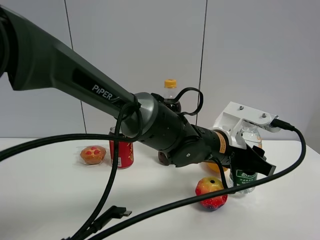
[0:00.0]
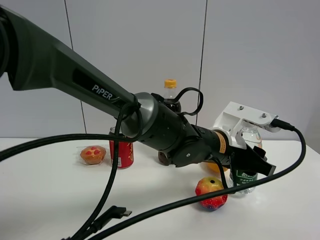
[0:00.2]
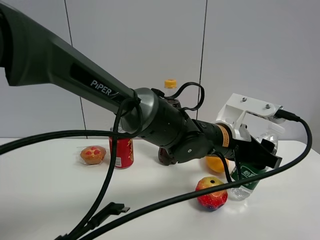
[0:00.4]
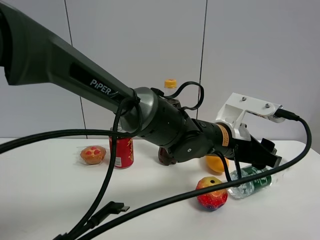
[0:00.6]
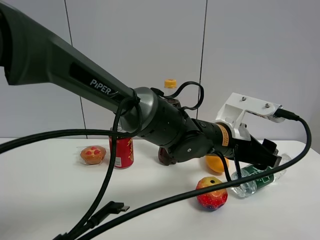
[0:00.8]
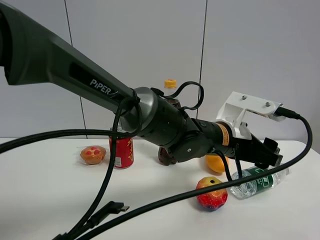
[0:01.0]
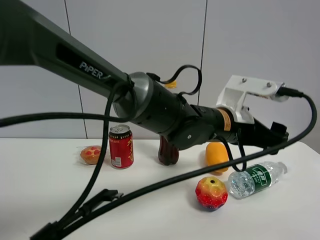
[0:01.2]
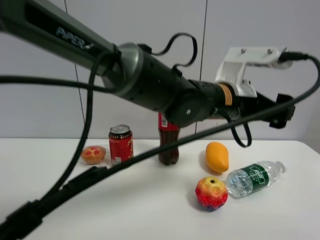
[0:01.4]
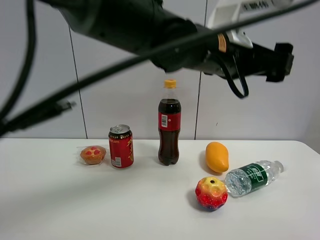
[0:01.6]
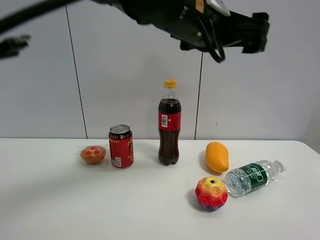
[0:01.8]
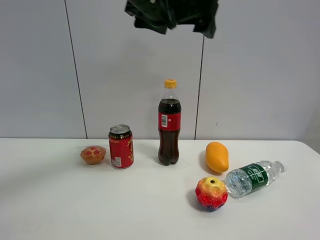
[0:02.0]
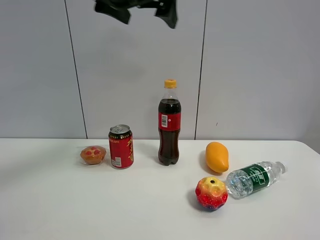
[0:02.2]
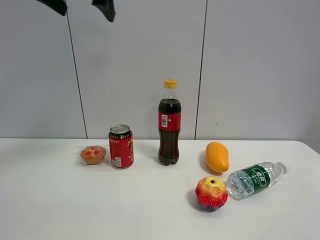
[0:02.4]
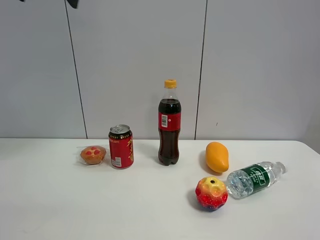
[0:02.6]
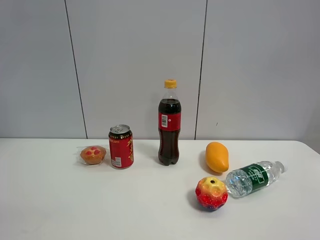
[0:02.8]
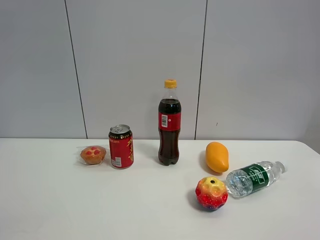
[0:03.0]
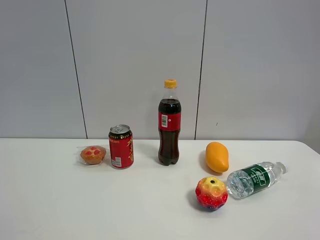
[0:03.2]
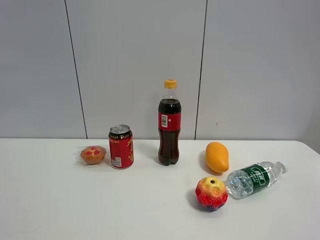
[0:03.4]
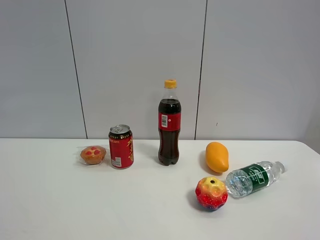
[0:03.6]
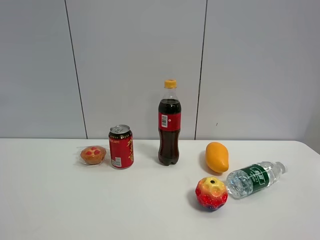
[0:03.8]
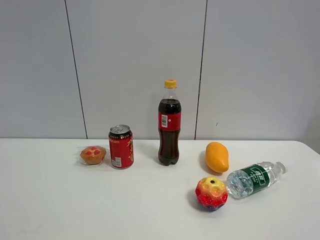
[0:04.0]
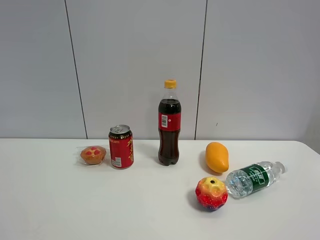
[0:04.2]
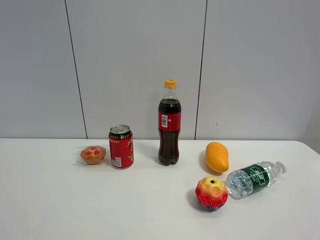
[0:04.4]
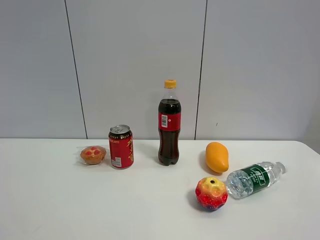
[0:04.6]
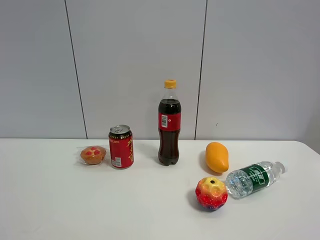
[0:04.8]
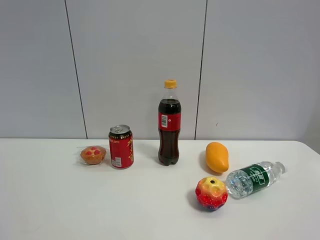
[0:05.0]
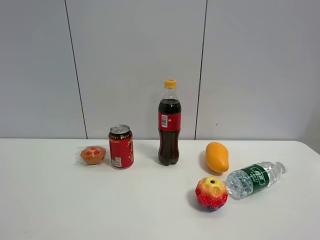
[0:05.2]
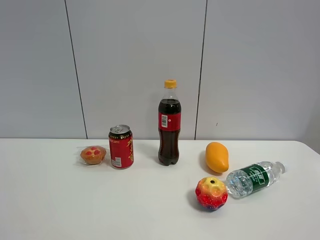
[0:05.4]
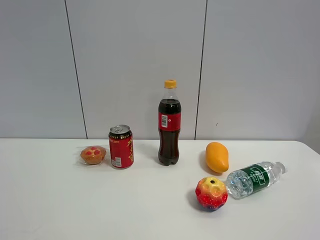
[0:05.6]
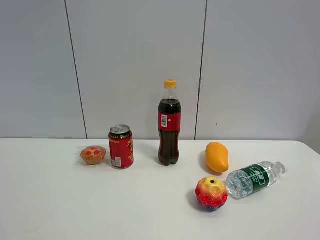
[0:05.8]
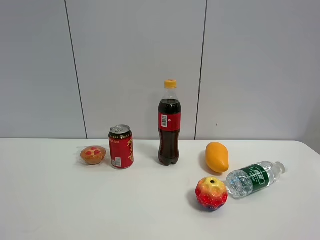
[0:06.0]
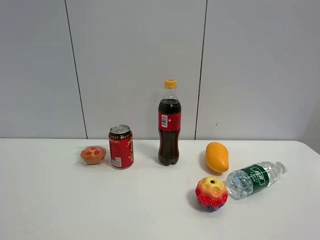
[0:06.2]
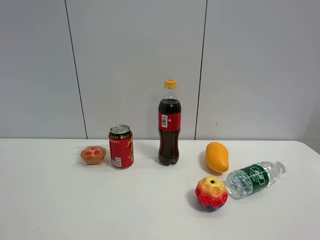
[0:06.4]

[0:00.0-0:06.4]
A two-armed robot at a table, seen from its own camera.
Task of the whole recording: the gripper move the object.
0:00.0 to 0:01.6: The left gripper goes roughly 15 cm upward, and opens its fingers.
0:01.6 to 0:03.2: The left gripper shifts some 40 cm to the left.

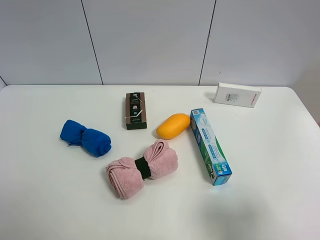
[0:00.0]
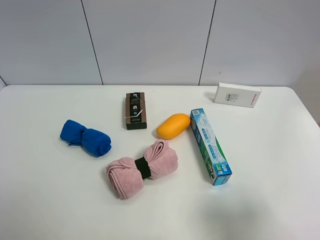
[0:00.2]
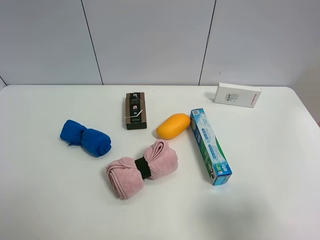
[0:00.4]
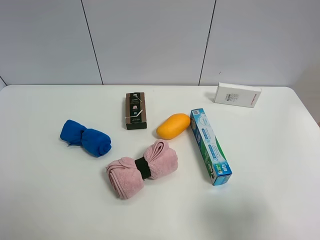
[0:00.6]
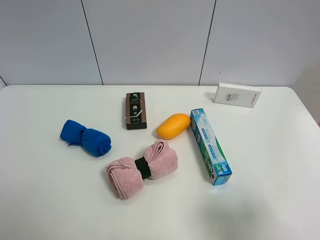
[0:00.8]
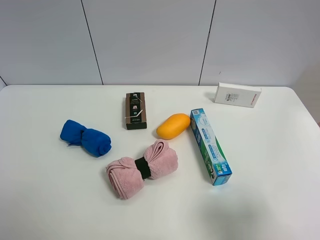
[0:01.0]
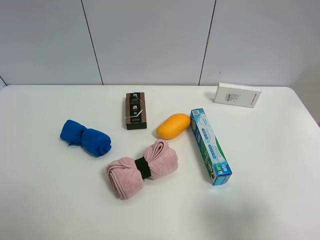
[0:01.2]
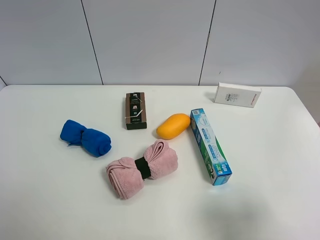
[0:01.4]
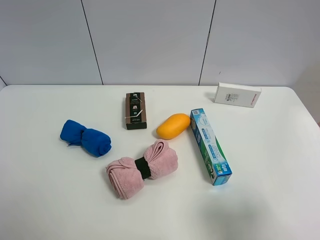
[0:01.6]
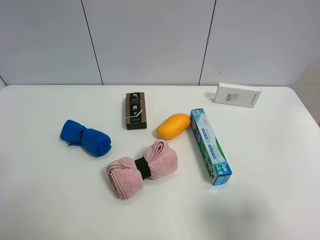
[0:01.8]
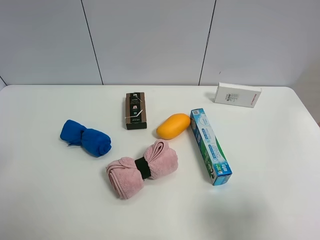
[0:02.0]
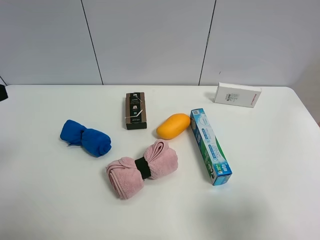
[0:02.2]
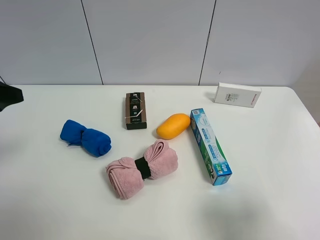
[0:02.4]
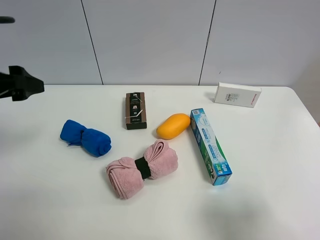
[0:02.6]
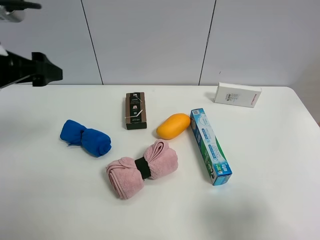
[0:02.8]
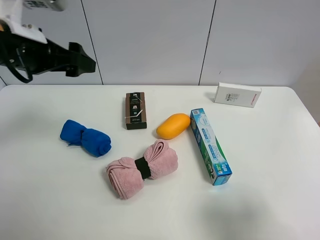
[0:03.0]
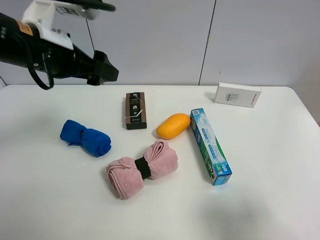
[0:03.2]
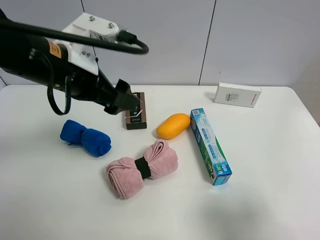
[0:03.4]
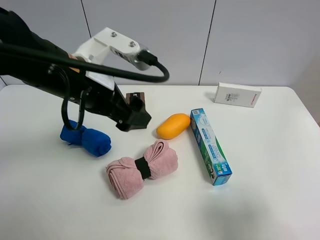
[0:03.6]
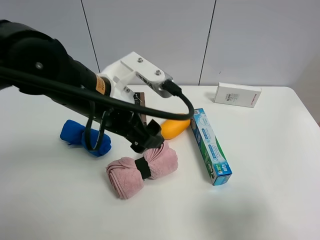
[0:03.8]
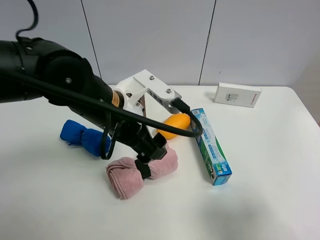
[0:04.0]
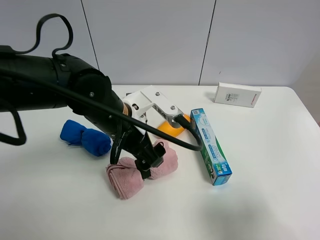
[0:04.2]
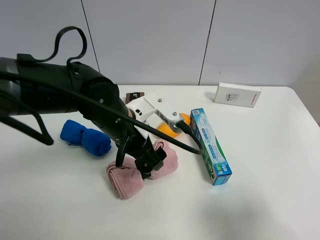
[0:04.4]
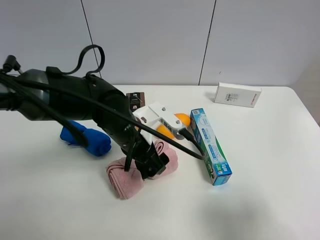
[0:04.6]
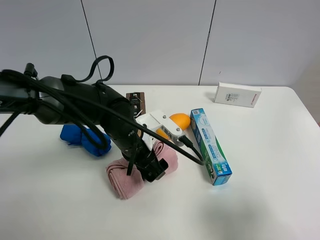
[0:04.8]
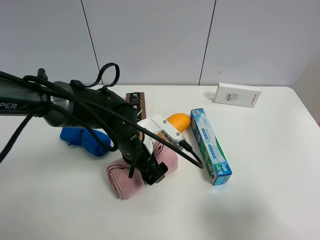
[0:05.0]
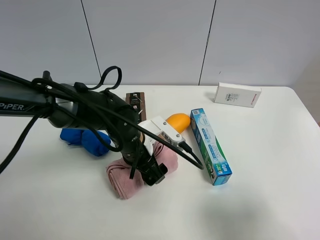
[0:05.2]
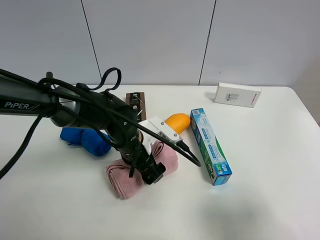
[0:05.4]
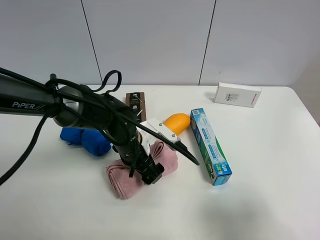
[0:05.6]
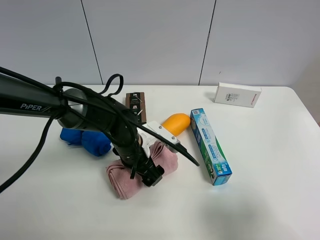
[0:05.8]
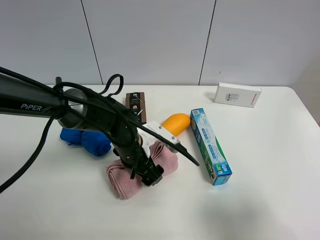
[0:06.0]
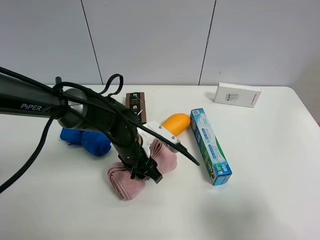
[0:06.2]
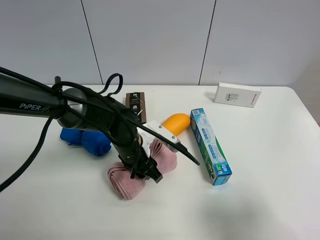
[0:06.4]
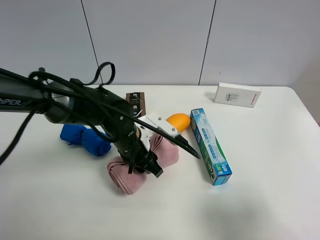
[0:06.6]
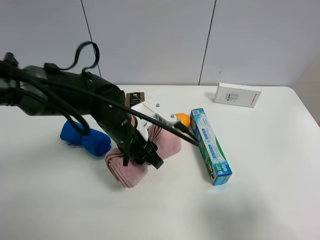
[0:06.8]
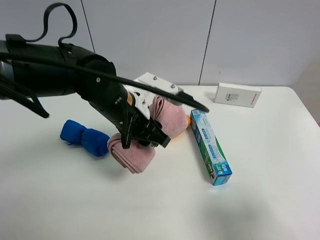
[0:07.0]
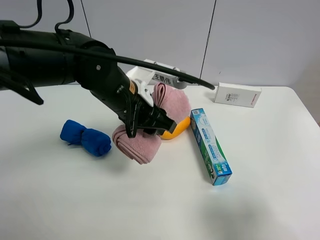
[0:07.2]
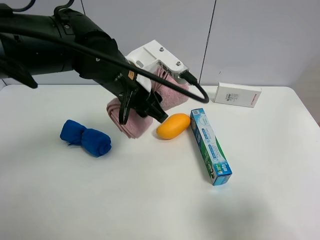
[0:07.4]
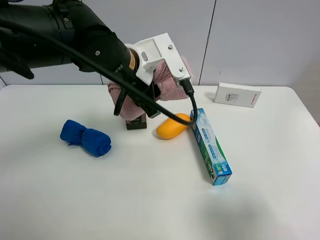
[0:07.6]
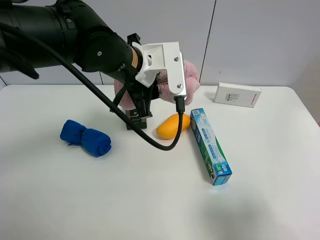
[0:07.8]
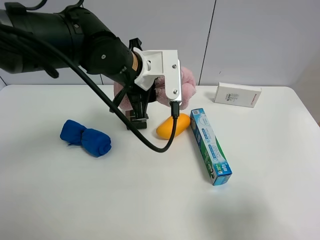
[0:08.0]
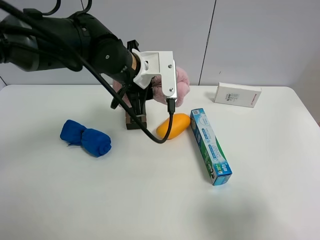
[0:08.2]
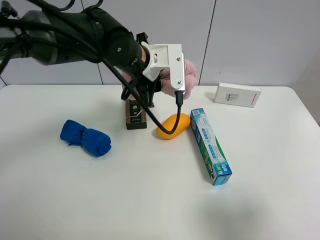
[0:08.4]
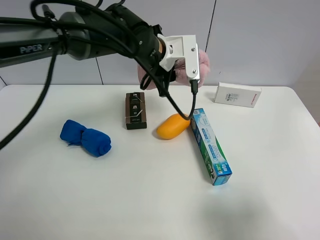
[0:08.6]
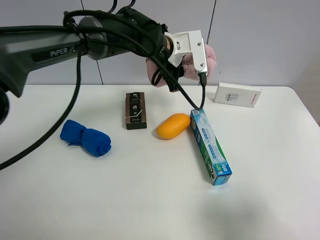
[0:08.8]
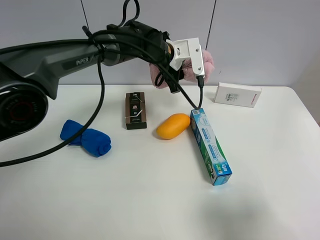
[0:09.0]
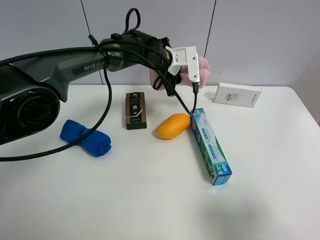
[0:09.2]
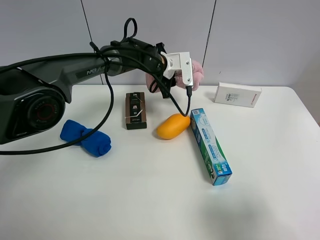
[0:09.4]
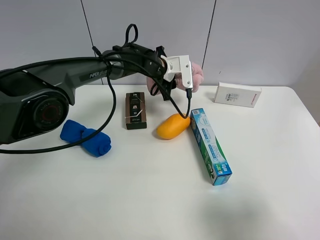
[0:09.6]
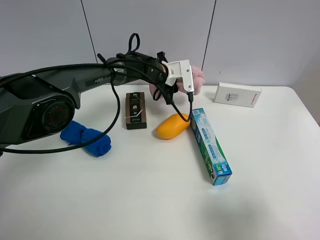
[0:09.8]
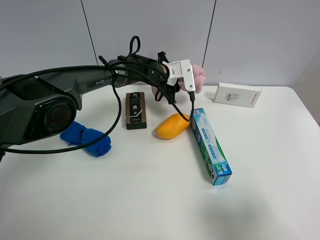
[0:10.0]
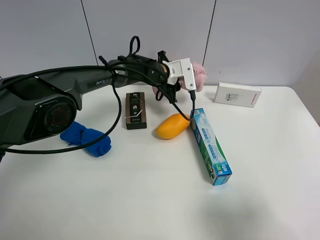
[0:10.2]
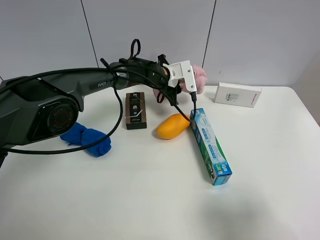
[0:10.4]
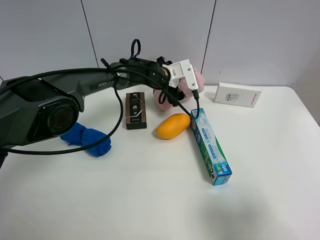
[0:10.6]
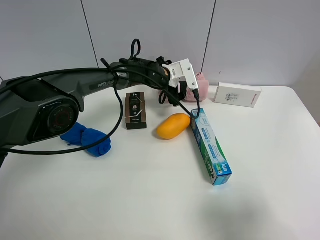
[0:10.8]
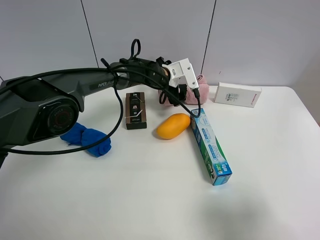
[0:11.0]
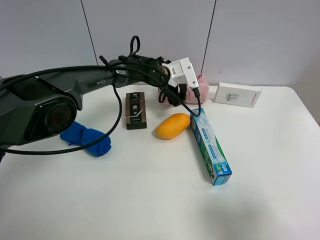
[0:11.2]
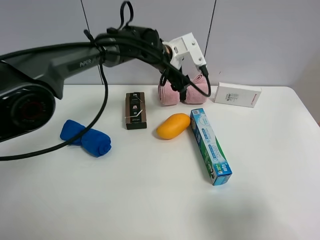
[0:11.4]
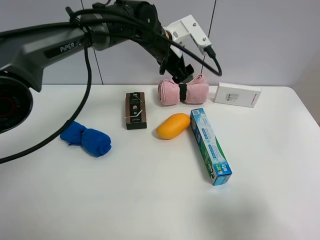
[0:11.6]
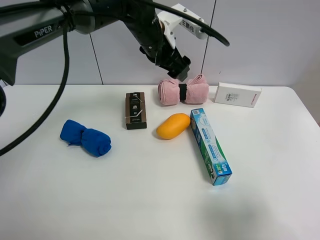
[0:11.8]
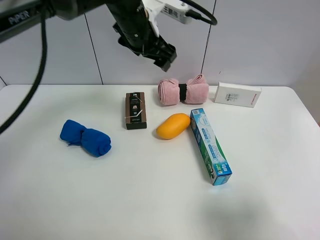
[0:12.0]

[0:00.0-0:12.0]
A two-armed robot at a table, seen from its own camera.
Task of the whole recording: the gripper move the object.
Step, 0:00.0 to 0:06.2: Grasp the pink towel with the left gripper.
Step, 0:06.4 to 0:11.4: Place the pink towel on the table with the left gripper.
0:01.6 to 0:03.0: The left gripper moves forward and to the right, some 25 cm.
0:03.0 to 0:04.4: The left gripper goes about 20 cm to the right and downward.
0:04.4 to 0:06.0: The left gripper is displaced downward by approximately 10 cm.
0:06.0 to 0:07.6: The left gripper goes roughly 15 cm upward, and closes up.
0:07.6 to 0:09.0: The left gripper heads forward and to the right, covering some 15 cm.
0:09.0 to 0:10.4: The left gripper shifts approximately 10 cm downward.
0:10.4 to 0:12.0: The left gripper moves upward and backward, approximately 20 cm, and opens its fingers.

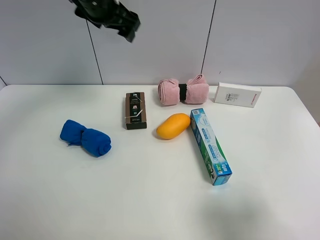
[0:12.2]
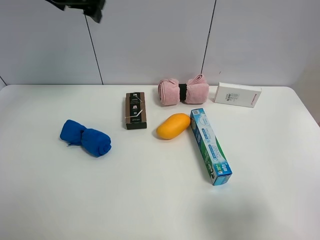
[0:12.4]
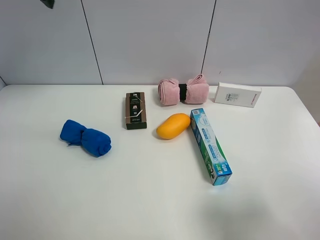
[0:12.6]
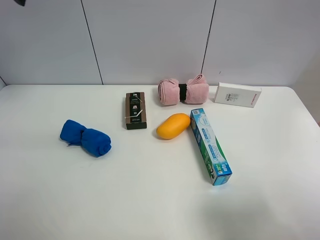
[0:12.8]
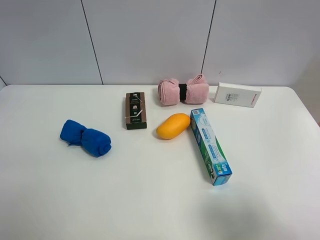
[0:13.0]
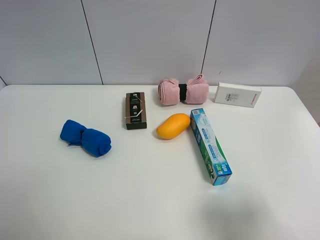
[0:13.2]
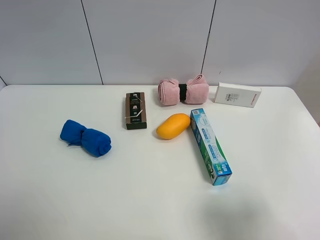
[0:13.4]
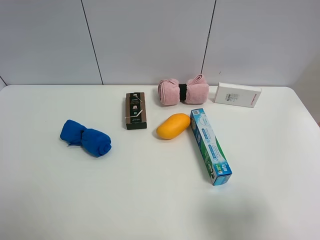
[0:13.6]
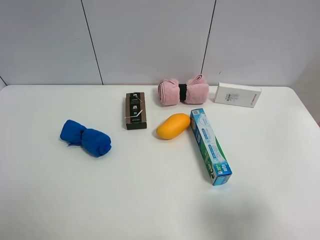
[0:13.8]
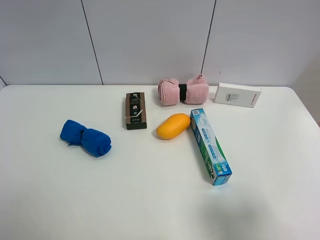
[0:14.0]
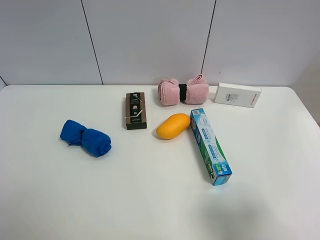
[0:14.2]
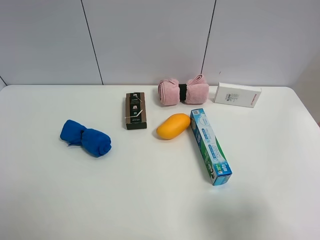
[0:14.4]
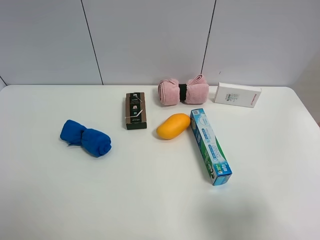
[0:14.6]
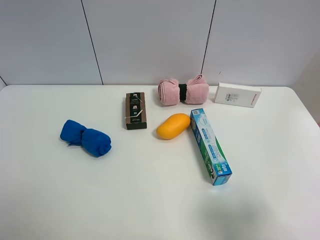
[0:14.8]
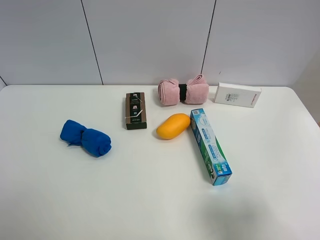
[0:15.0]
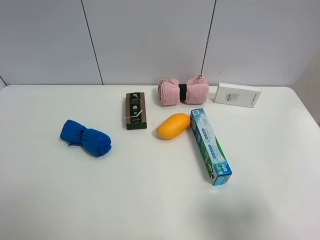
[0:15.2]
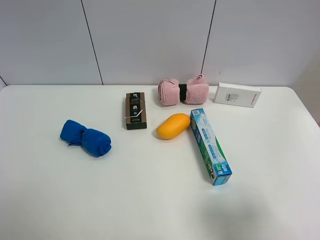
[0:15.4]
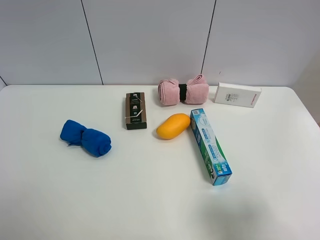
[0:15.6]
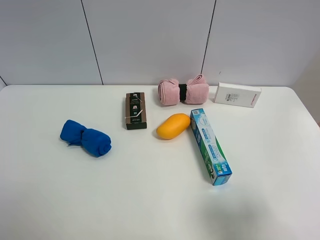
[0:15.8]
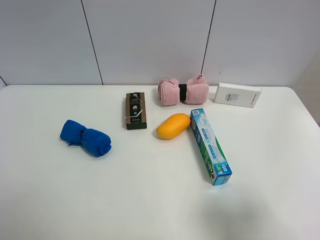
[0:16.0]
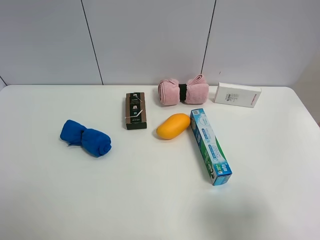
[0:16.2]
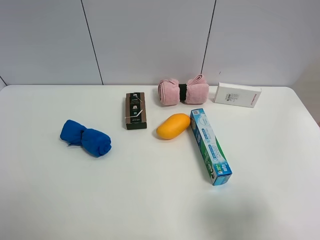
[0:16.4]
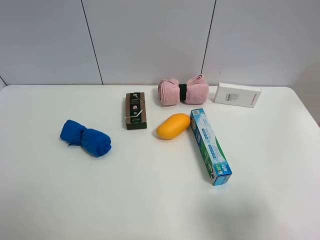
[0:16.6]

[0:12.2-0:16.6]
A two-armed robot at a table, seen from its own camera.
Task of the whole recording: the gripper move the object.
0:12.2 to 0:13.6: The left gripper shifts some 35 cm backward and to the left.
0:15.2 to 0:16.6: Neither gripper changes place.
